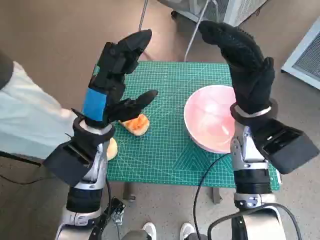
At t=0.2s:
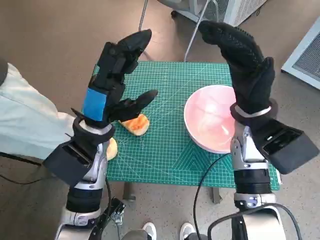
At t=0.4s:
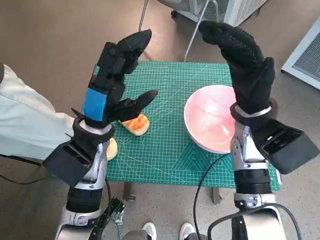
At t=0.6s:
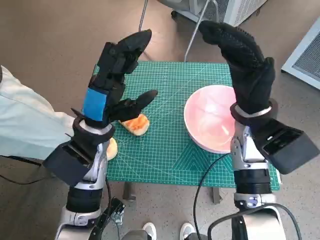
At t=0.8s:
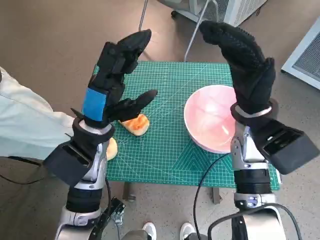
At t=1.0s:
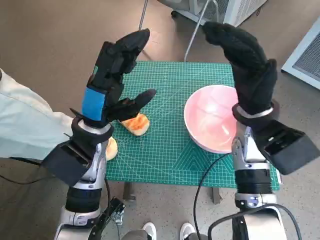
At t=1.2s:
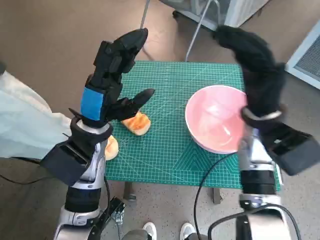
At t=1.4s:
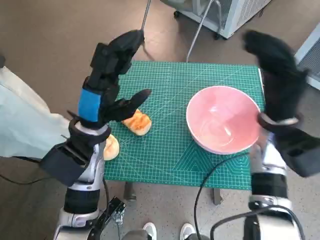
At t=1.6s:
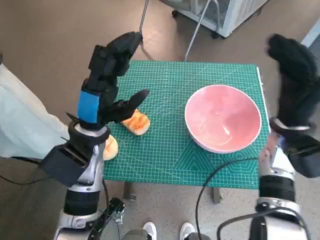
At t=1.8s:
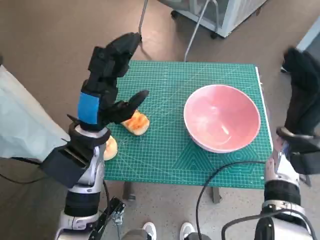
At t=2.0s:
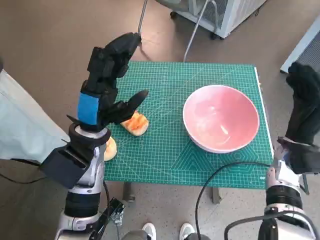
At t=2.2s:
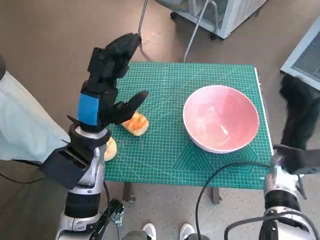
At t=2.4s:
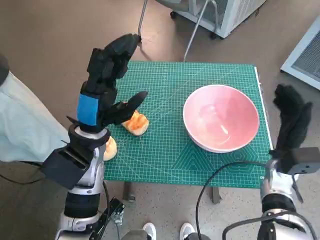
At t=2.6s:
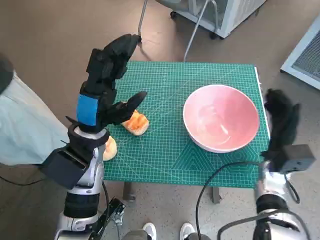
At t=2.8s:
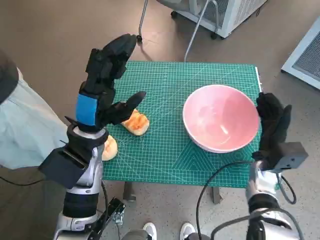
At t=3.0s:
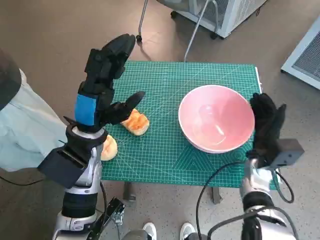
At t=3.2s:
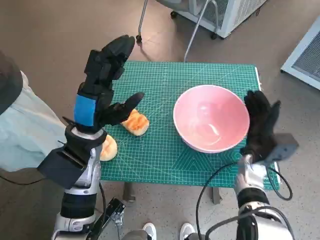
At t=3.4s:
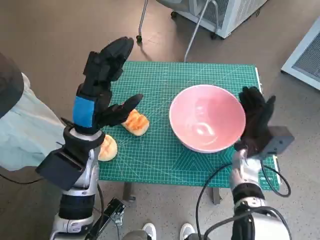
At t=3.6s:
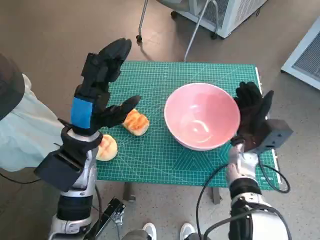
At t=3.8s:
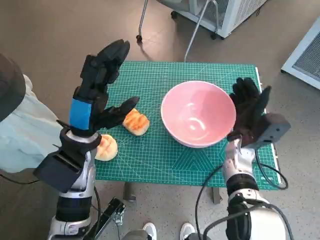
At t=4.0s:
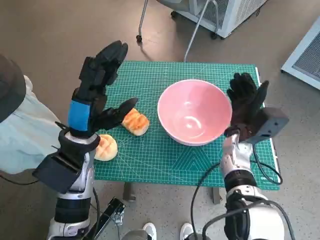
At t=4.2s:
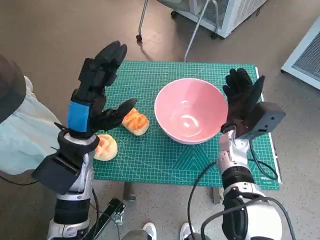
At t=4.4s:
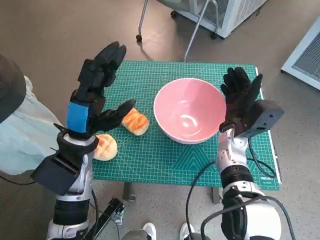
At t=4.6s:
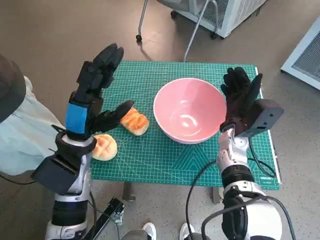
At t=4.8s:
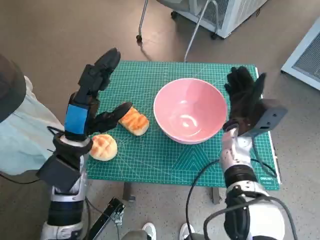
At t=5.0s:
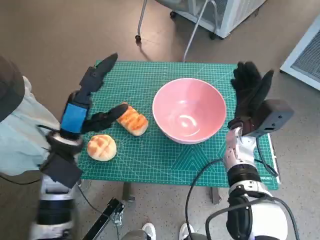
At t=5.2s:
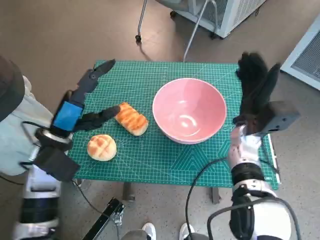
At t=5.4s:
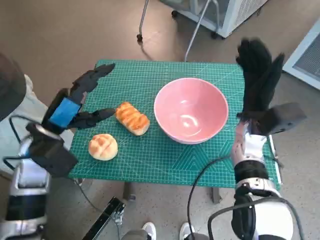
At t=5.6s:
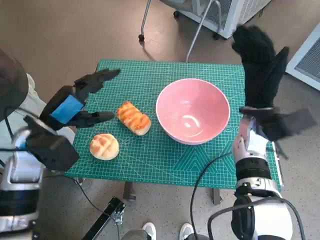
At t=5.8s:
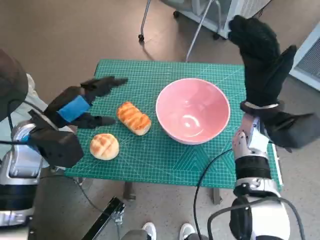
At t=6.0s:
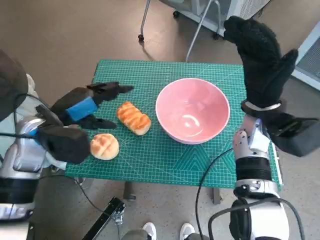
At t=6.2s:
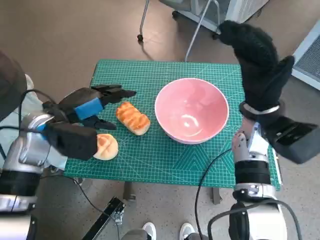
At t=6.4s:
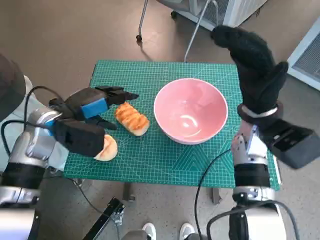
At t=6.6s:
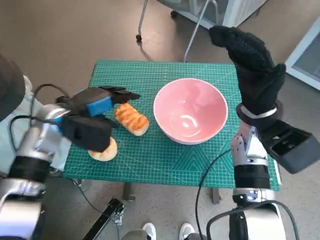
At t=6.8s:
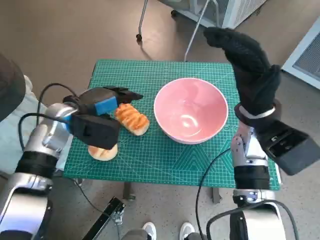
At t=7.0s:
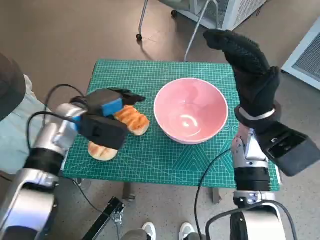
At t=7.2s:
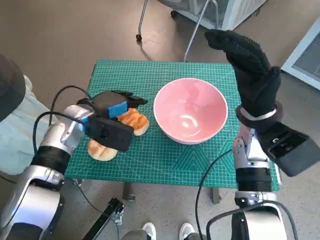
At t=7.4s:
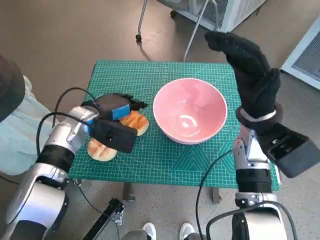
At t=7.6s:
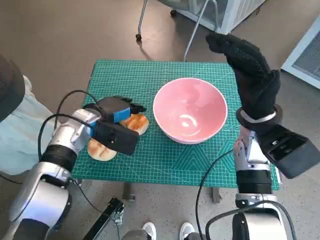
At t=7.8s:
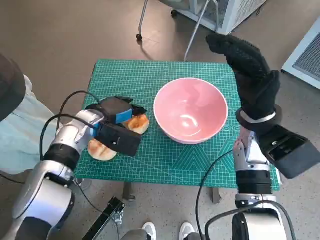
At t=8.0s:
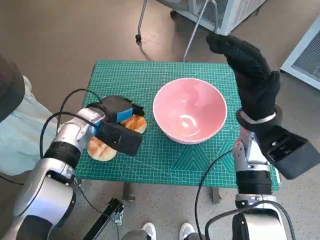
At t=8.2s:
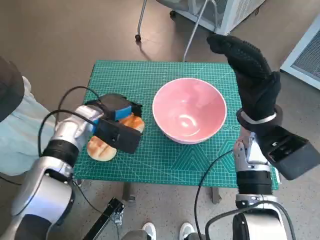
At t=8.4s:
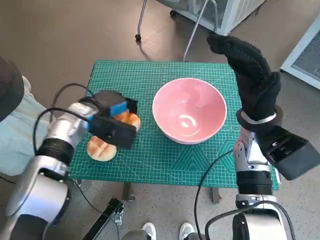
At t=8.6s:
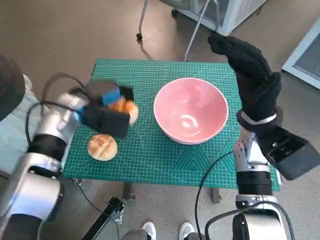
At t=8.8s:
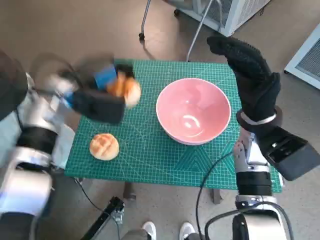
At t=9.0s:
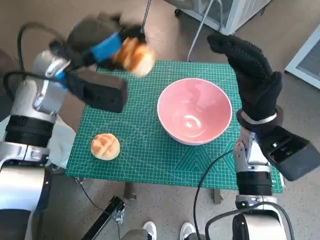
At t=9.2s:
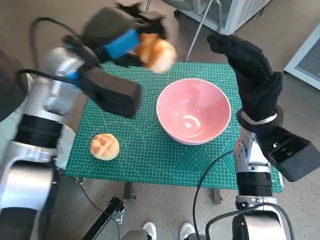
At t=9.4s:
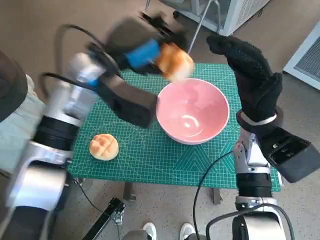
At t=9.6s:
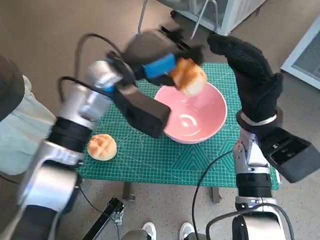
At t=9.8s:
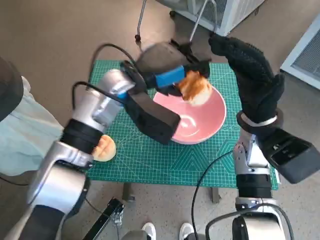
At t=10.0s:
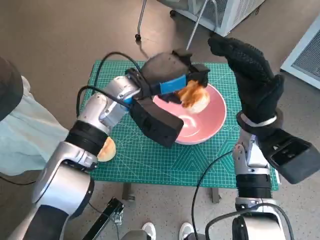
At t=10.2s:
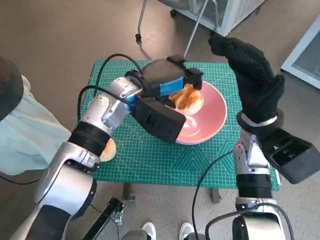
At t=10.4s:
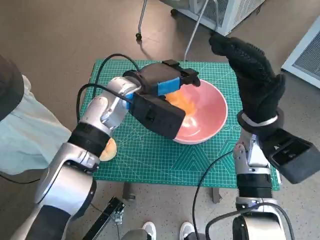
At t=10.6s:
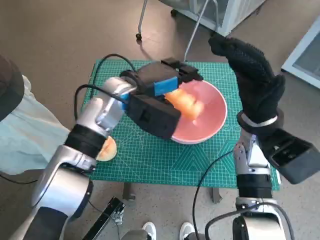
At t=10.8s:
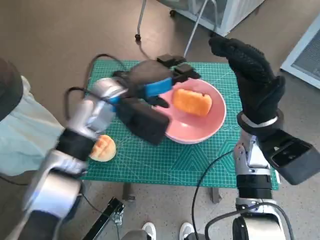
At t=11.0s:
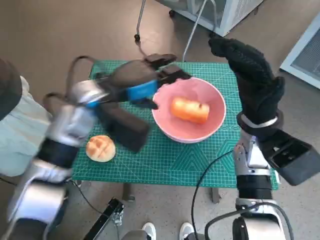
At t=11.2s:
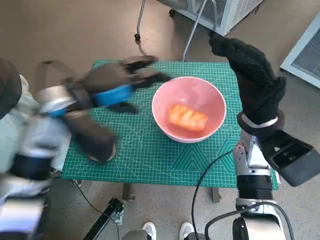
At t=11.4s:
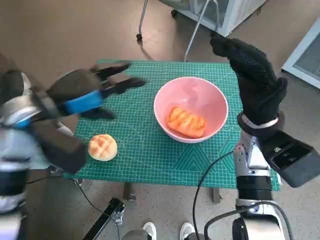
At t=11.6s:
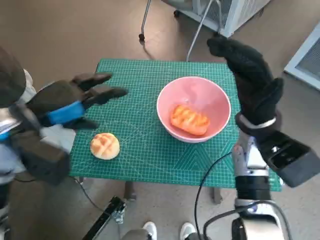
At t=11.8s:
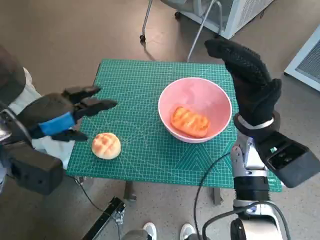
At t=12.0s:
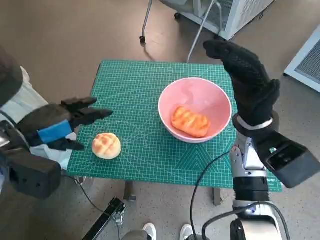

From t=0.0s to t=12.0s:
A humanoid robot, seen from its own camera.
Task of the whole recording: Push the bowl to the center of the table and put the bread into the bowl.
Step, from t=0.0s to t=4.8s: Move the pink bowl to the center of table with right hand.
Step, from t=5.0s to t=8.2s: Grasp the long bread with left hand.
Step, from t=8.4s to t=10.8s: Place the long bread in pink bowl with left hand.
From t=1.6s to t=3.0s: The right hand heads downward, covering about 10 cm.
From t=3.0s to t=4.4s: The right hand is displaced to the left by about 5 cm.
From t=4.4s to t=6.0s: The left hand travels to the left by approximately 5 cm; the right hand is displaced upward by about 10 cm.
From t=6.0s to t=7.6s: The left hand shifts approximately 10 cm downward, forward and to the right.
From t=7.6s to t=9.0s: The left hand moves upward, about 15 cm.
From t=9.0s to t=10.4s: The left hand travels to the right by some 10 cm.
From t=10.4s to t=12.0s: The left hand is displaced to the left and backward by approximately 20 cm.

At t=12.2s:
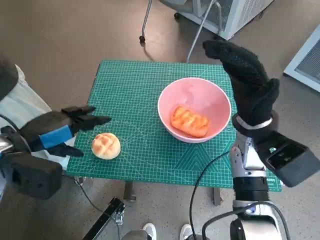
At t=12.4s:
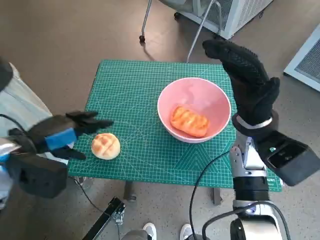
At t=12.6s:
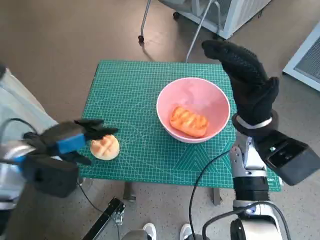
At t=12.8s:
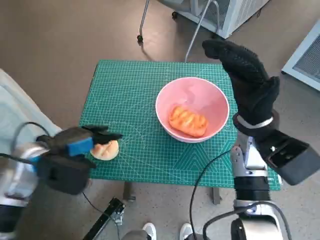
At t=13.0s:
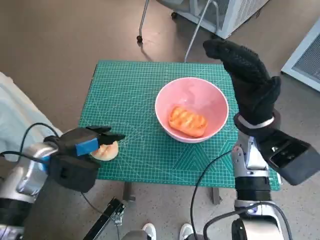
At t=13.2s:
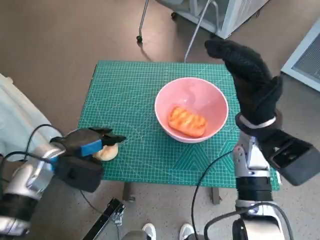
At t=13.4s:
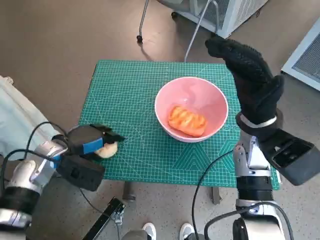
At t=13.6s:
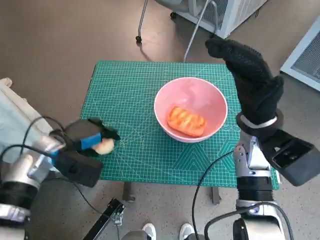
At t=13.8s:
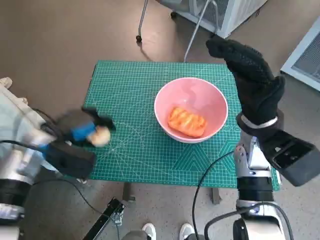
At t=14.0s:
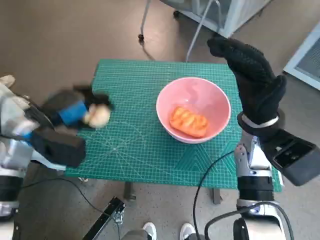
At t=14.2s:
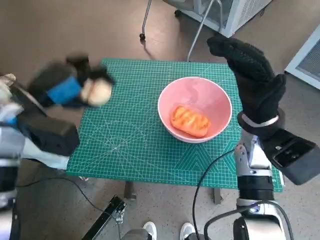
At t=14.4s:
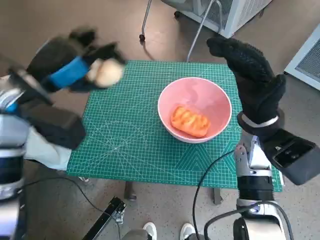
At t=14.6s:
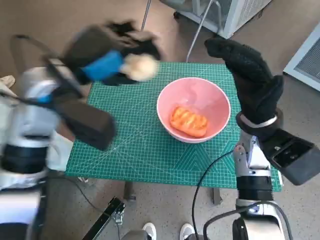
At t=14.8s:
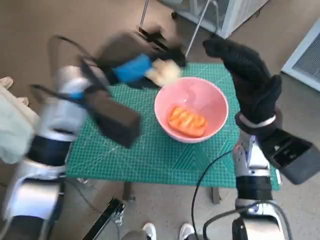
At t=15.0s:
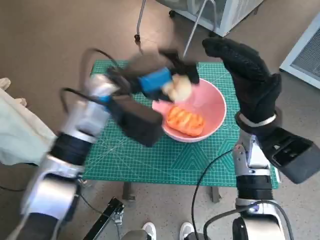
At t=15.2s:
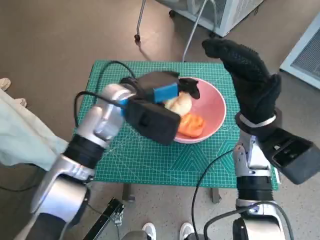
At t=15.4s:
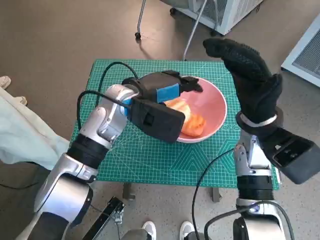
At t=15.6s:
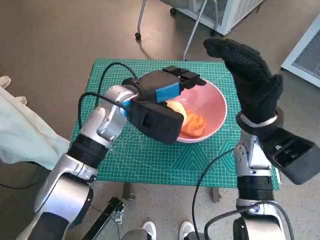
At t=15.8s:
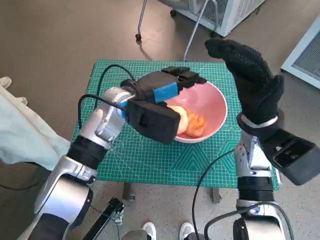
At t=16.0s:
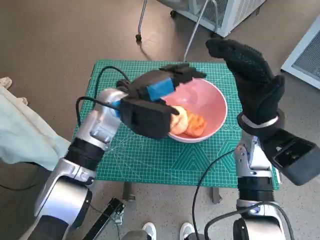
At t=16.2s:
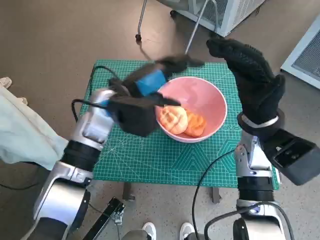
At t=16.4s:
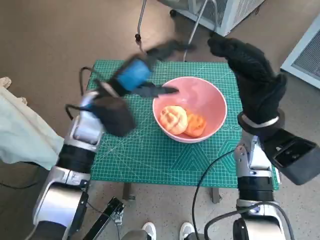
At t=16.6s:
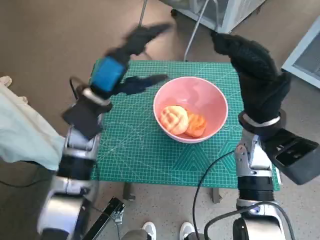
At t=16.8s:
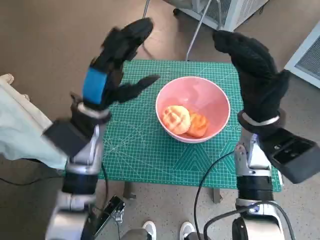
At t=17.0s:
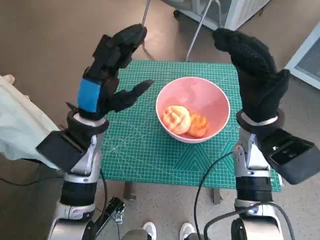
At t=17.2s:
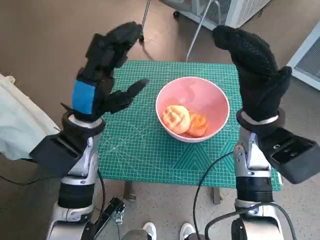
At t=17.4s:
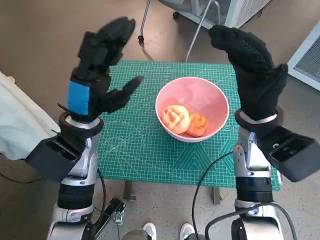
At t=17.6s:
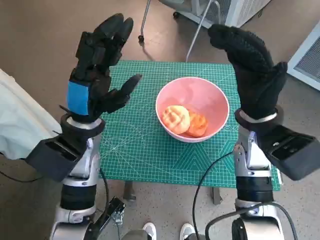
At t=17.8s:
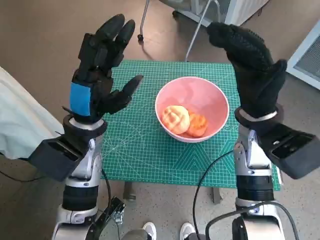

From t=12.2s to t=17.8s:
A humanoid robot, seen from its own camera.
Task of the whole recording: Push the bowl to the center of the table and put the bread into the bowl.
Step, from t=12.2s to t=13.4s: Grasp the round bread with left hand.
Step, from t=13.6s to t=15.6s: Place the round bread in pink bowl with left hand.
From t=12.2s to t=13.6s: The left hand travels downward by some 10 cm.
From t=13.6s to t=15.0s: The left hand moves to the right and upward, about 20 cm.
From t=16.4s to t=17.8s: The left hand goes approximately 5 cm backward.
